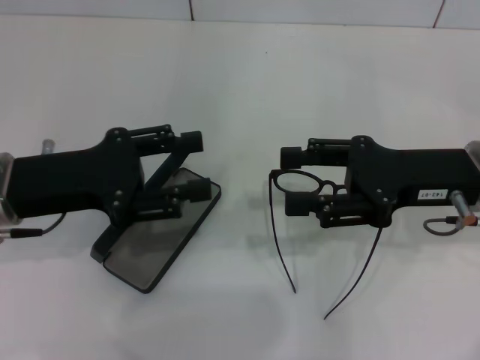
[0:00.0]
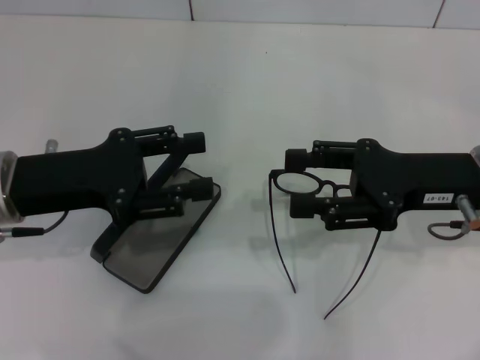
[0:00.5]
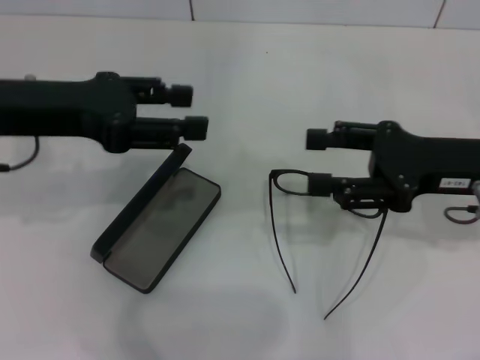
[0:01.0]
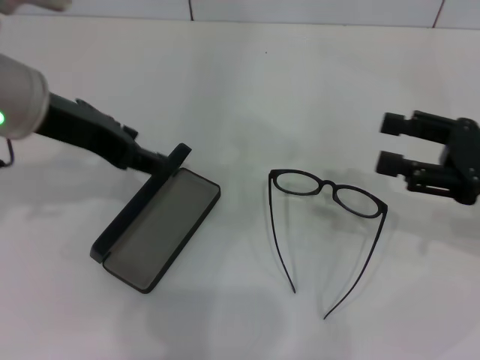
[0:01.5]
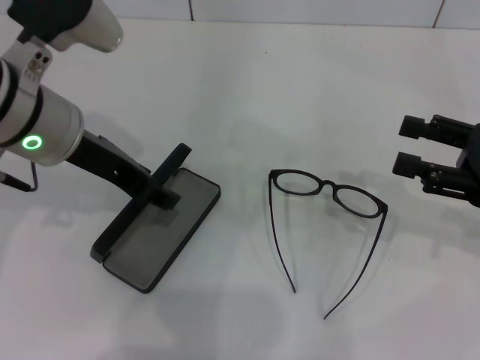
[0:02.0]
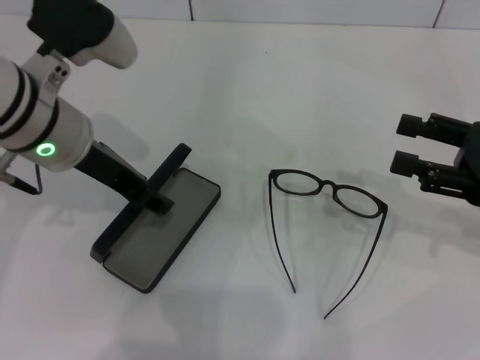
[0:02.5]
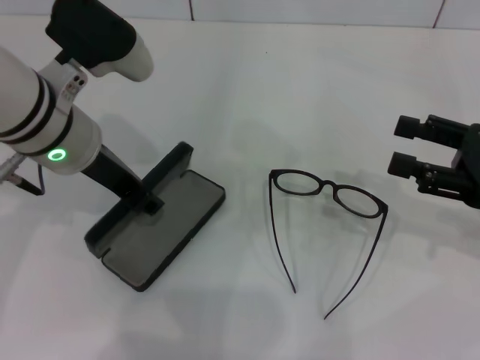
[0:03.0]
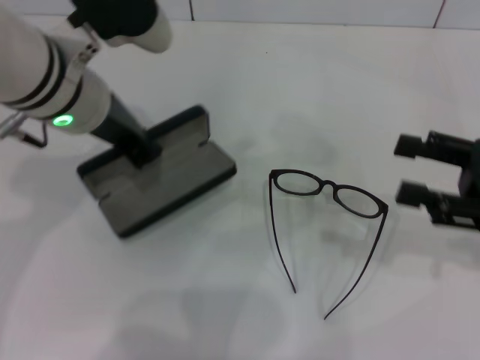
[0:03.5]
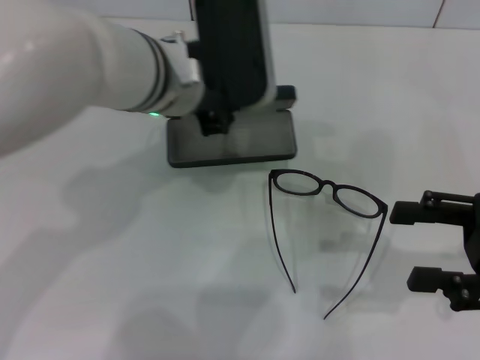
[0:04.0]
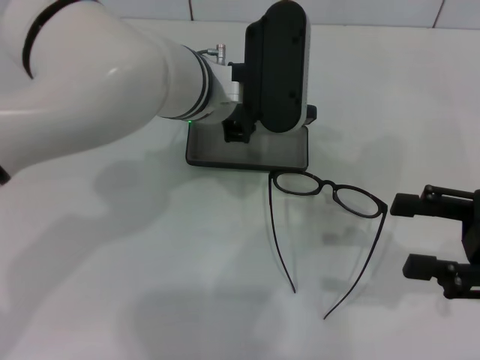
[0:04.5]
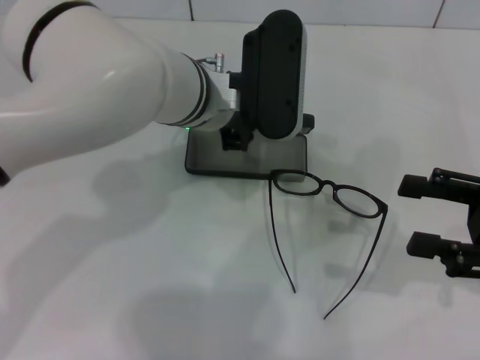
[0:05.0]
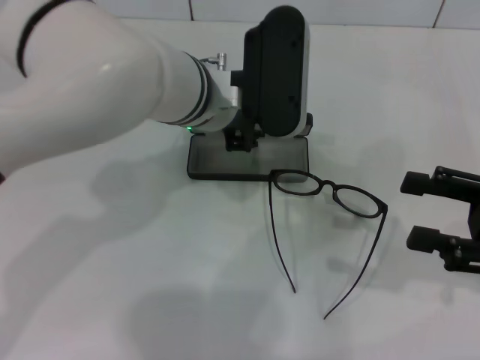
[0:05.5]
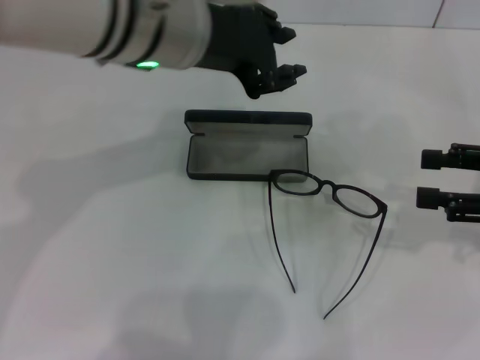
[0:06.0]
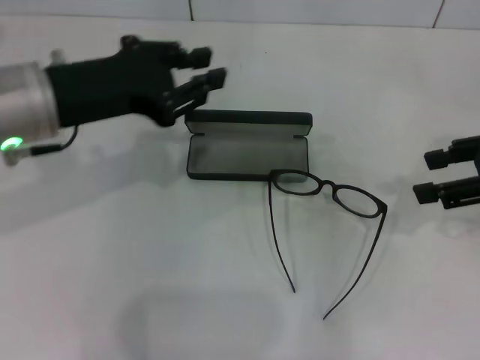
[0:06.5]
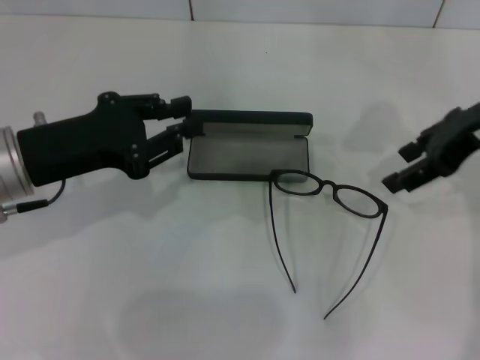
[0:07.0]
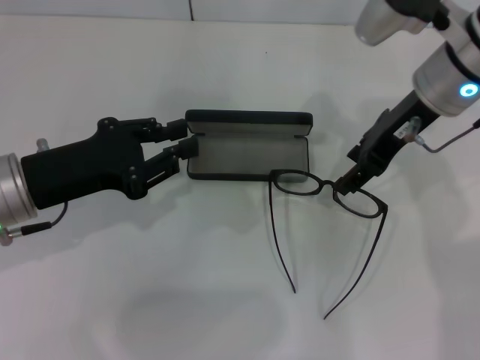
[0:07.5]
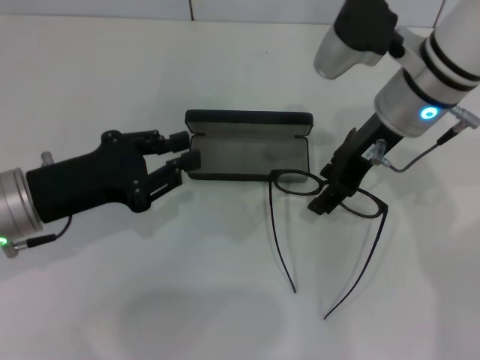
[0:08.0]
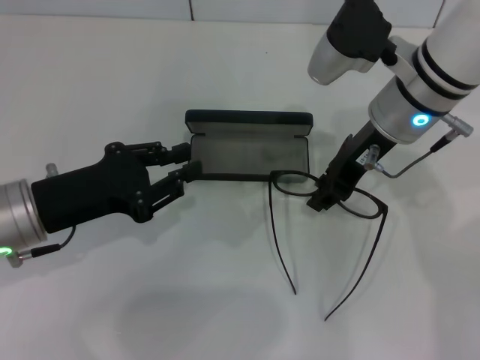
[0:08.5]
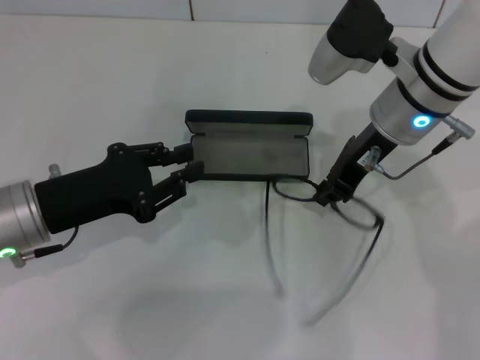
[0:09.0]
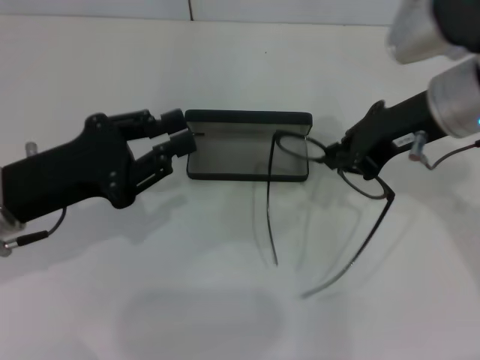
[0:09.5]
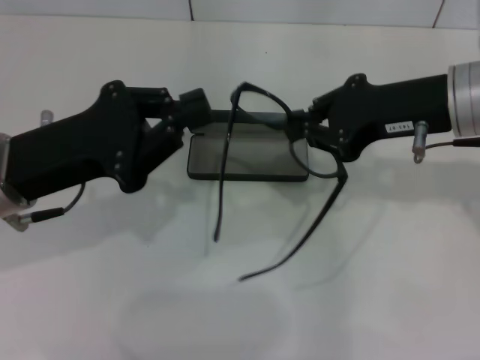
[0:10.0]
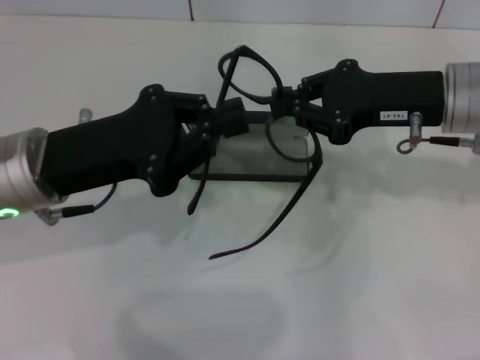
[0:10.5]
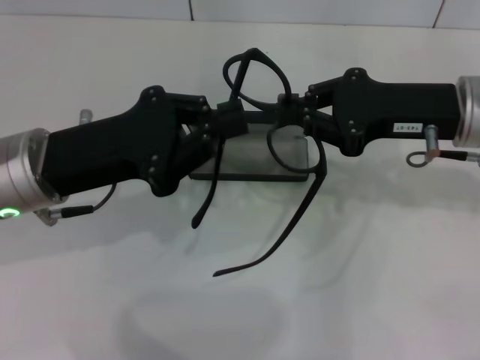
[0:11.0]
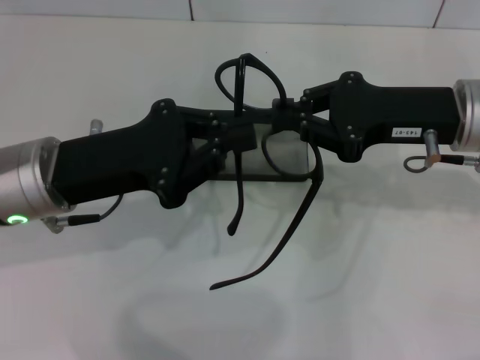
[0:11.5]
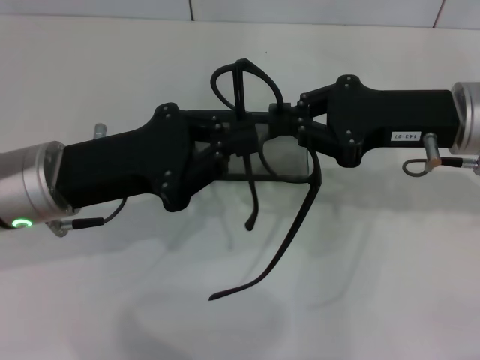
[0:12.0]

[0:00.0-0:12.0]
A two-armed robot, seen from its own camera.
Step, 0:00.0 to 0:03.0: Grab the glasses case with your left hand.
Step, 0:03.5 to 0:05.0: Place the glasses case in the center of the table with your left hand.
Step, 0:05.5 to 0:08.5: Grab the eyeglass frame with your right hand.
0:00.0 to 0:02.0: The right gripper heads to the right, covering roughly 10 cm. The left gripper is displaced to the right and upward by approximately 10 cm.
0:02.0 to 0:04.0: The left gripper travels to the right by about 10 cm, and closes.
0:04.0 to 0:06.0: The left gripper goes approximately 5 cm upward, while the right gripper moves roughly 5 cm.
0:06.0 to 0:08.0: The right gripper goes some 25 cm to the left and forward; the left gripper travels to the left, downward and backward by approximately 20 cm.
0:08.0 to 0:10.0: The right gripper is displaced to the right and backward by approximately 10 cm, and closes its fingers.

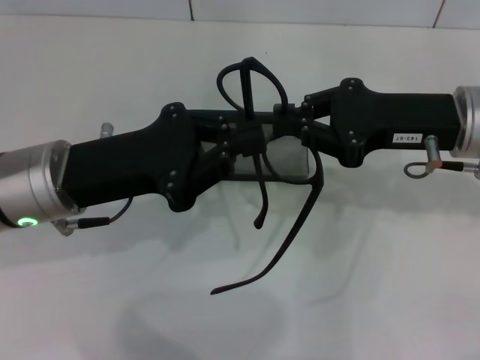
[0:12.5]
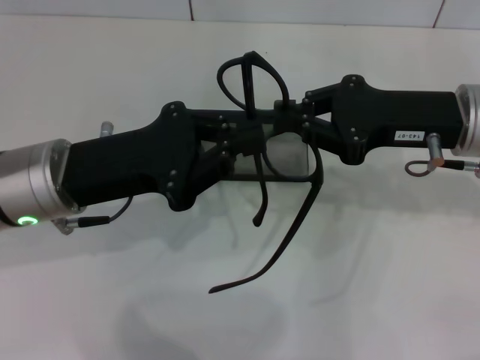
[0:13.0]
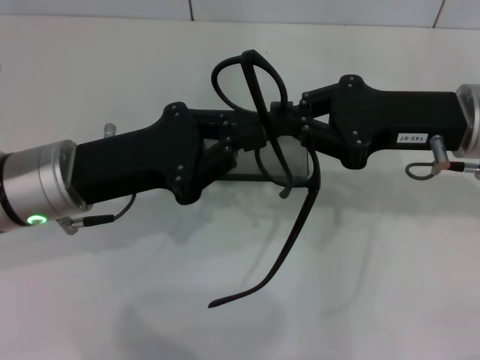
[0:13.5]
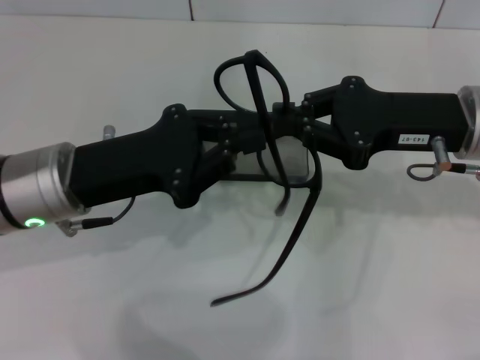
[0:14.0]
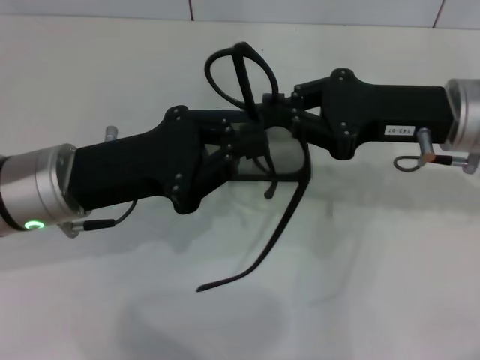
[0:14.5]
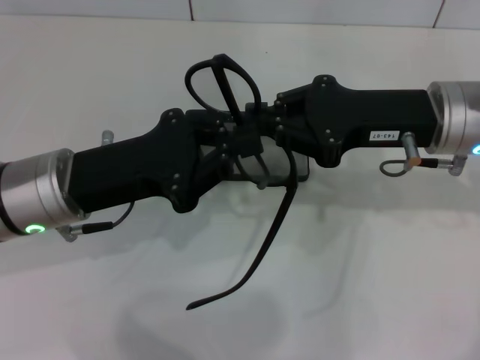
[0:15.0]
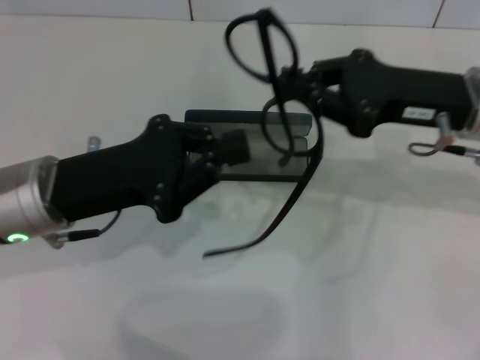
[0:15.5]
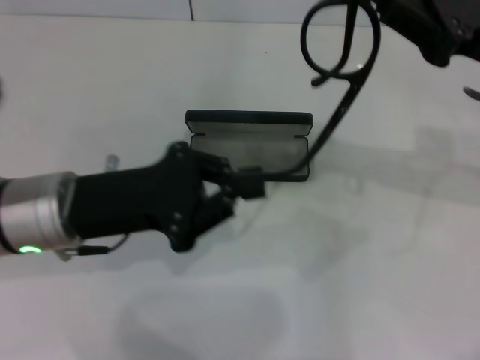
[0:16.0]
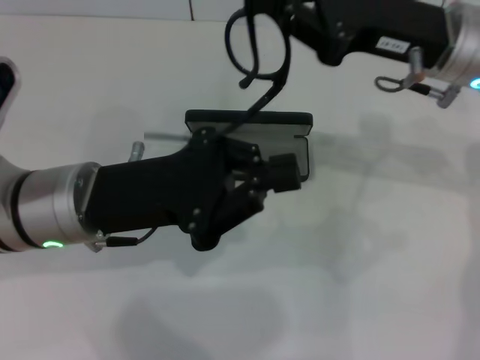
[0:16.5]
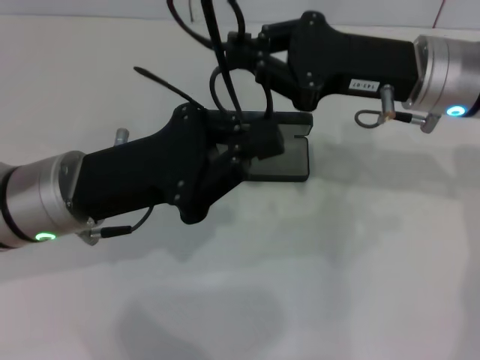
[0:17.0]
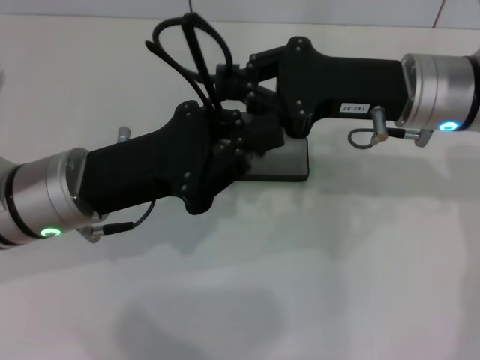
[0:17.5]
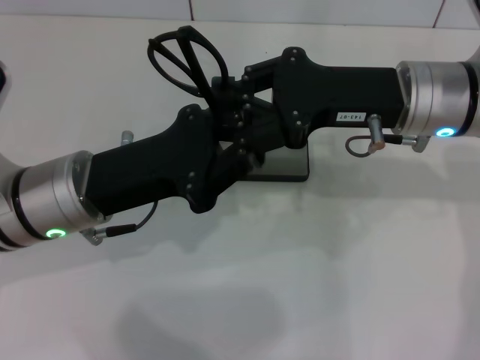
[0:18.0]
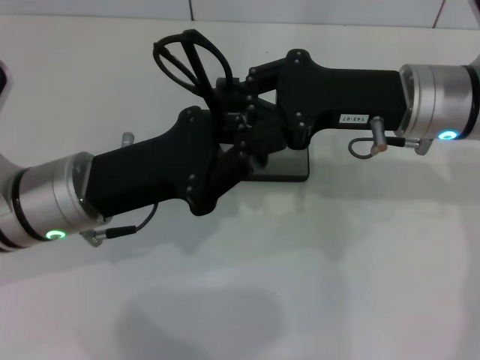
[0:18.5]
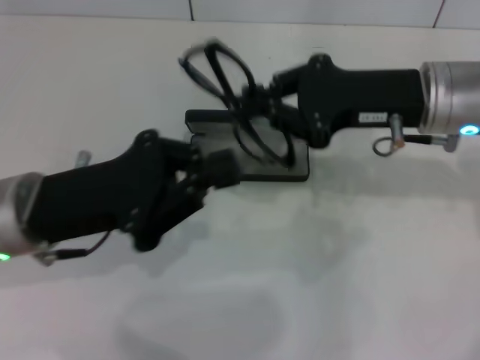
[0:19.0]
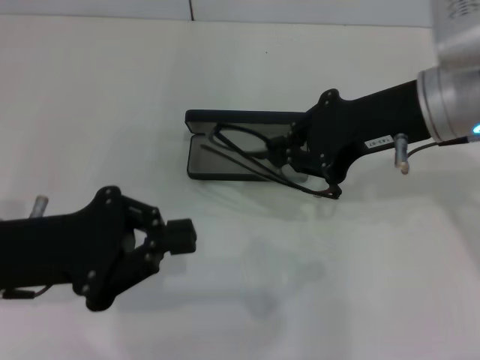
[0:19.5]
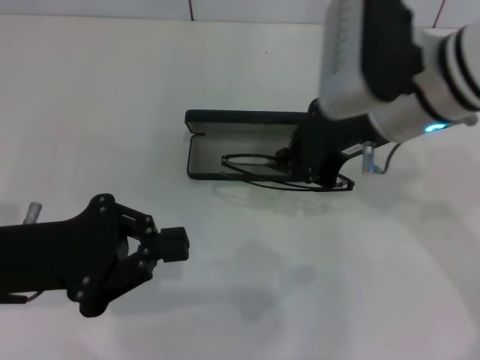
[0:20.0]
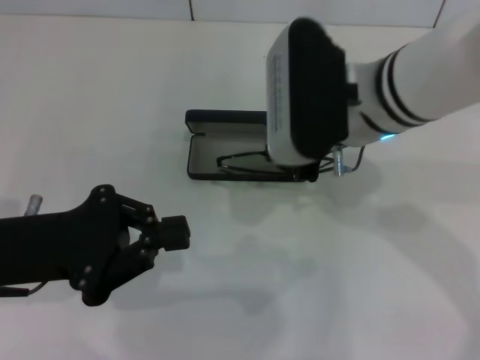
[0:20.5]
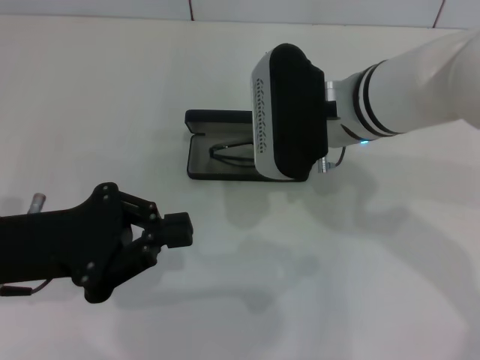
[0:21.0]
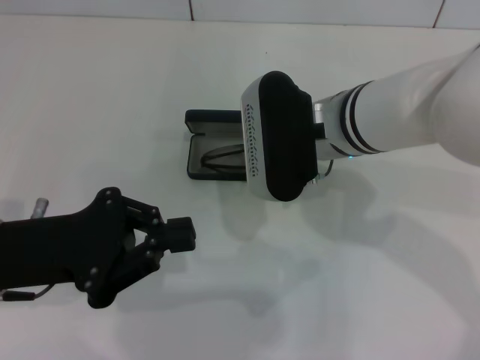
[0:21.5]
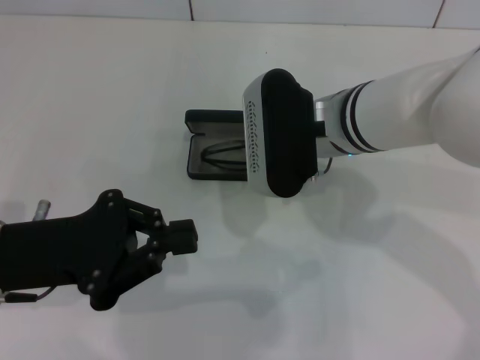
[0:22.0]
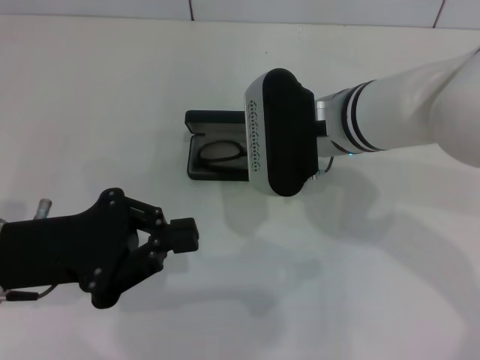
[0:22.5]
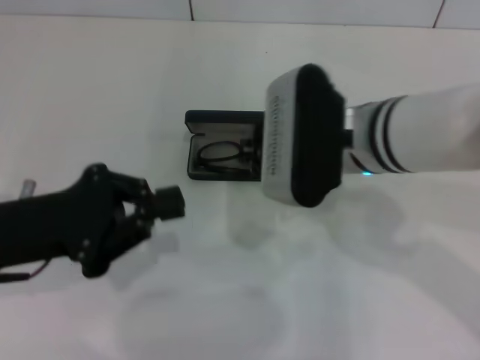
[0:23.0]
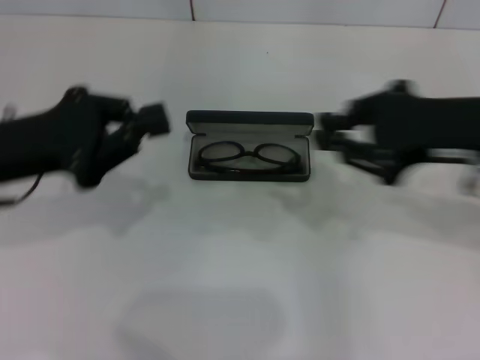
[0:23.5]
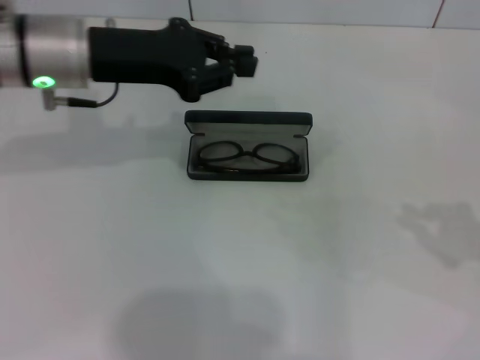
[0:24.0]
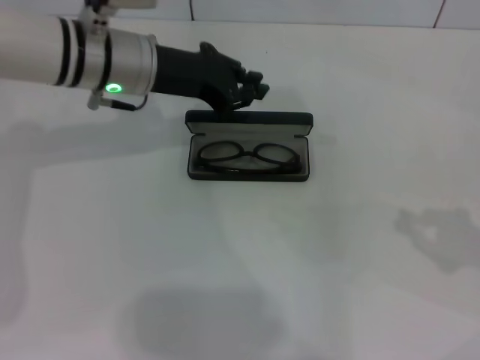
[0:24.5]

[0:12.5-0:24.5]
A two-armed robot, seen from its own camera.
Step, 0:12.5 to 0:18.0: Fold the frame with your left hand.
Step, 0:18.5 to 0:22.5: Put the glasses into the case with your right hand.
0:12.5 to 0:14.5: Both grippers stay about where they are.
0:18.5 to 0:20.5: Both grippers move to the left, about 10 cm.
0:20.5 to 0:22.5: The grippers move only a little.
0:22.5 to 0:24.5: The left gripper shifts roughly 20 cm forward and to the right, while the right gripper shifts about 35 cm to the right and backward.

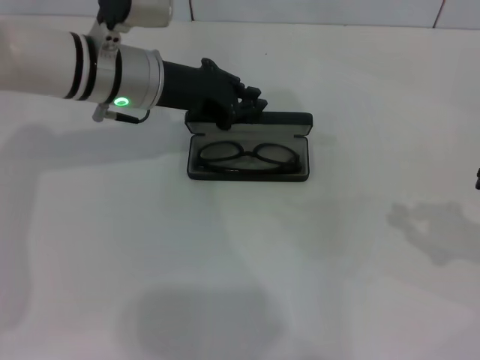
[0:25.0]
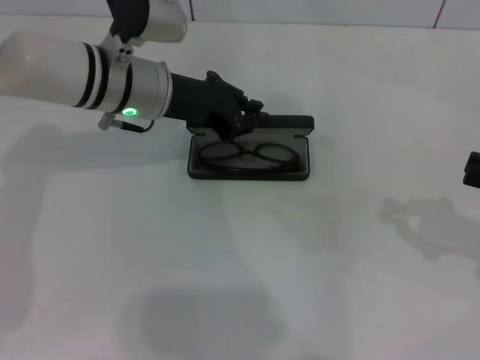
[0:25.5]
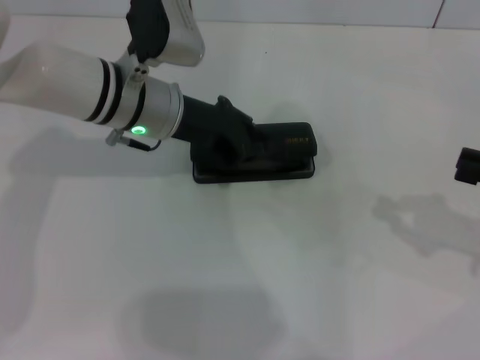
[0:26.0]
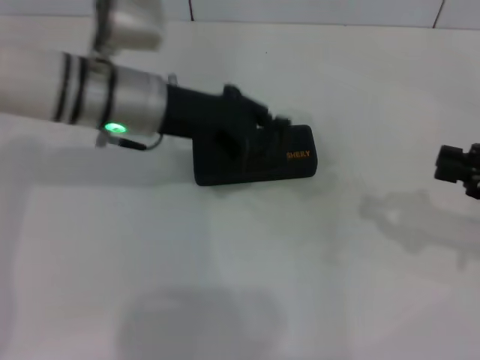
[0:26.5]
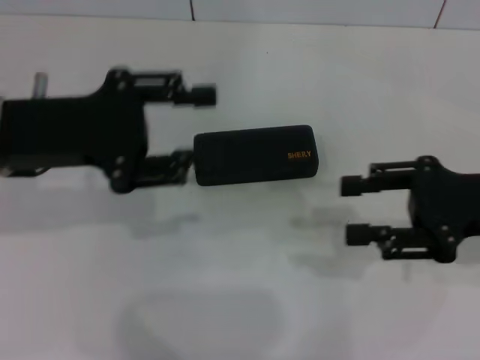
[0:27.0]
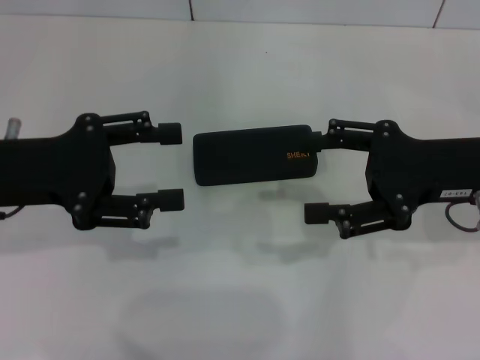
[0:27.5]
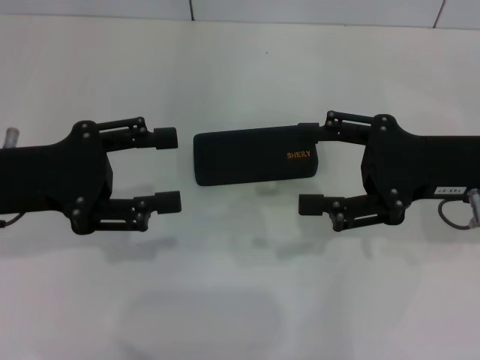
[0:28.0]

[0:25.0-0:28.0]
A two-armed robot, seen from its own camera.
0:25.0 to 0:26.5: The grippers make only small movements.
0:26.5 to 0:28.0: The right gripper goes some 10 cm to the left, and opens its fingers, while the left gripper heads to the left and backward, covering roughly 15 cm, and opens.
